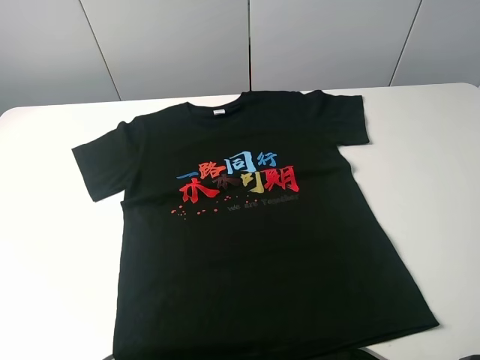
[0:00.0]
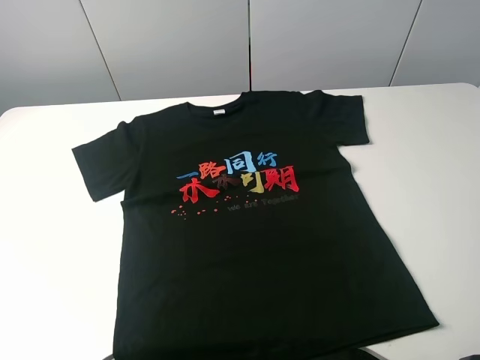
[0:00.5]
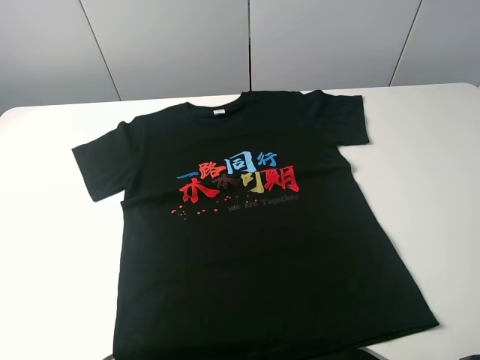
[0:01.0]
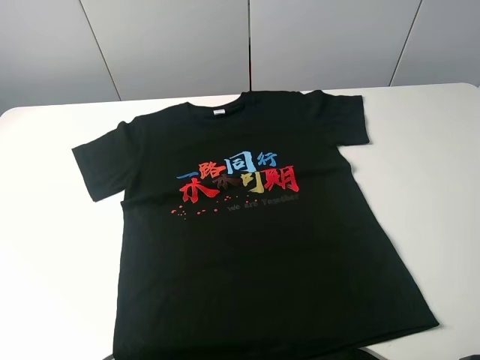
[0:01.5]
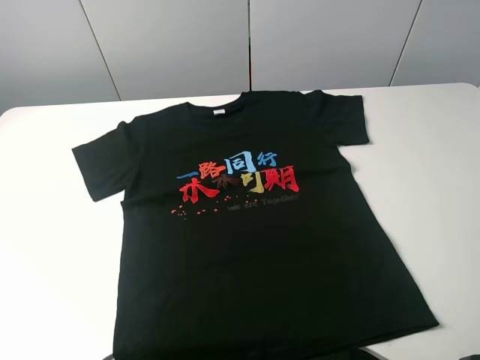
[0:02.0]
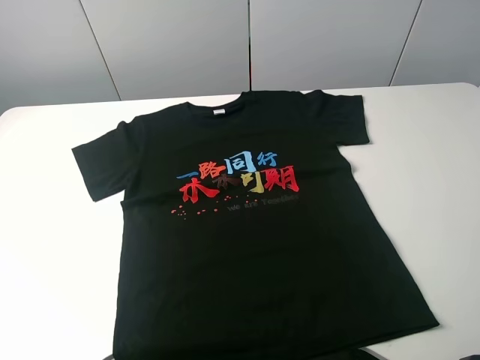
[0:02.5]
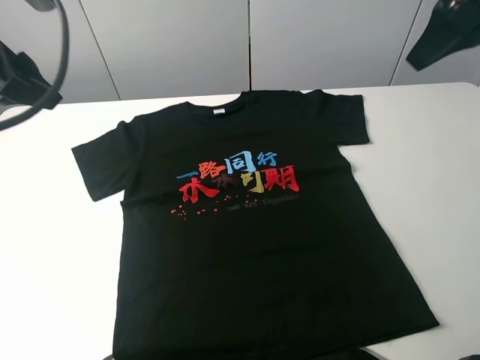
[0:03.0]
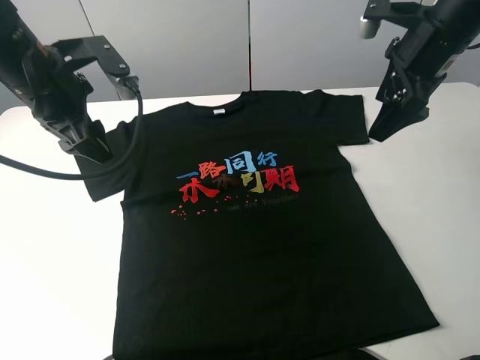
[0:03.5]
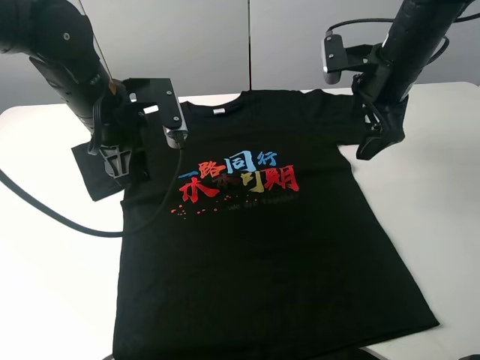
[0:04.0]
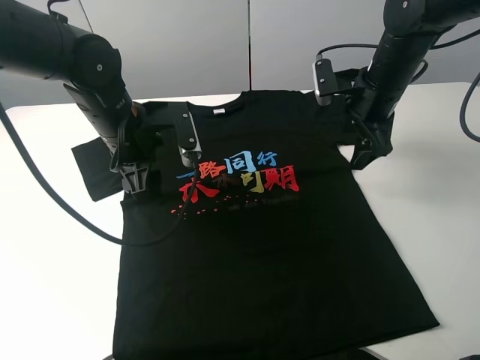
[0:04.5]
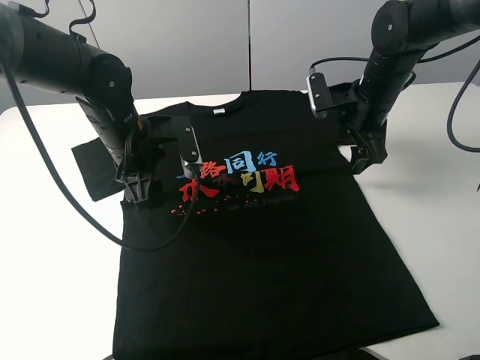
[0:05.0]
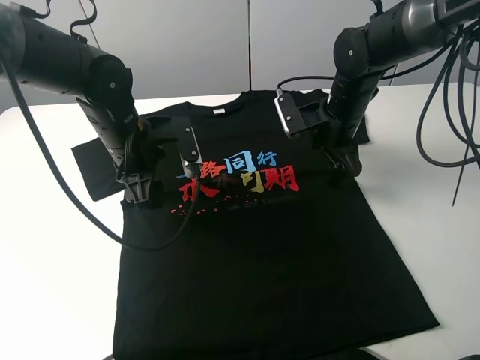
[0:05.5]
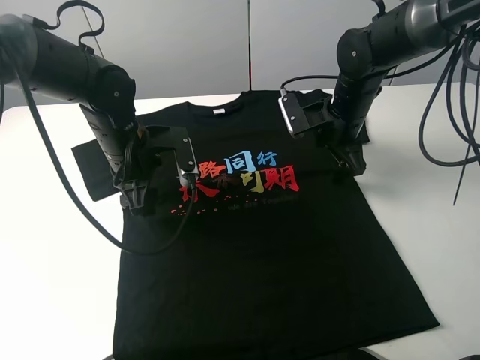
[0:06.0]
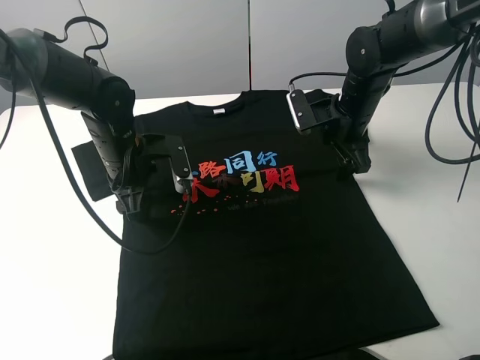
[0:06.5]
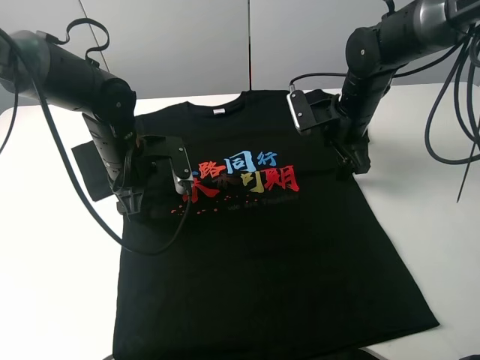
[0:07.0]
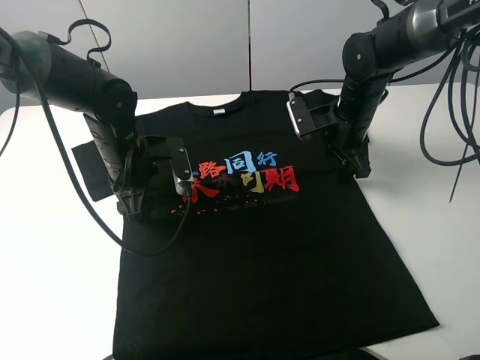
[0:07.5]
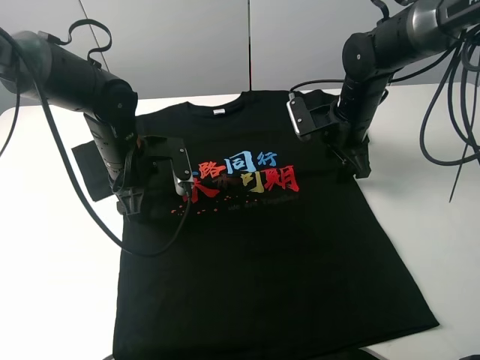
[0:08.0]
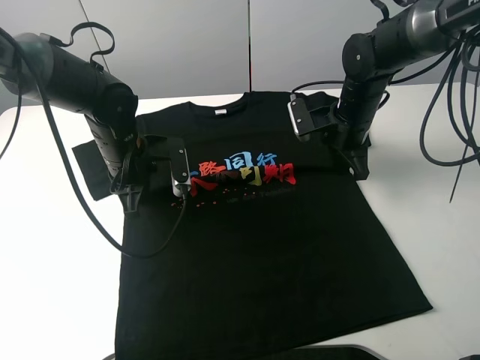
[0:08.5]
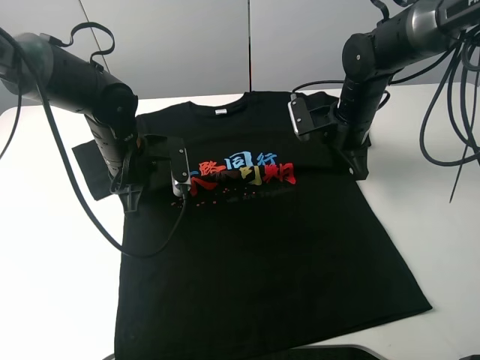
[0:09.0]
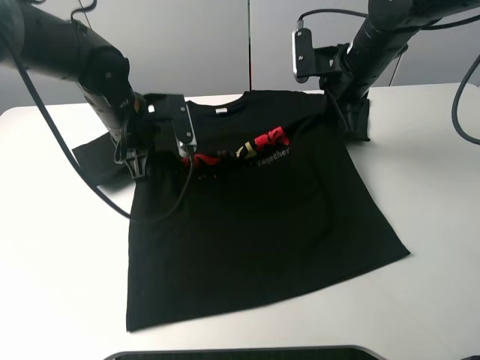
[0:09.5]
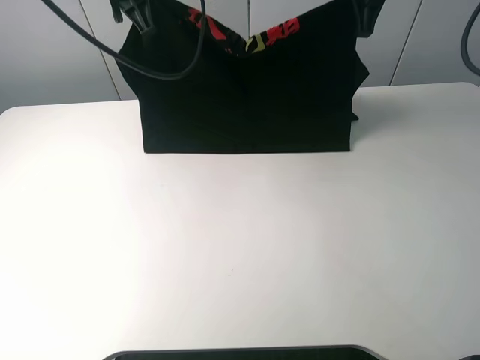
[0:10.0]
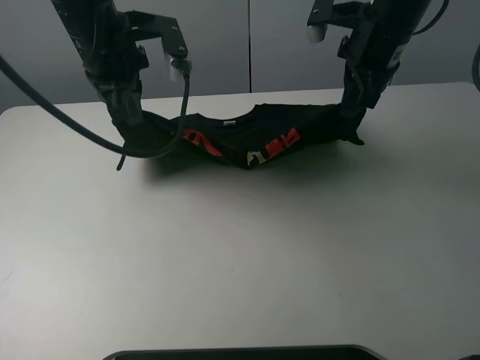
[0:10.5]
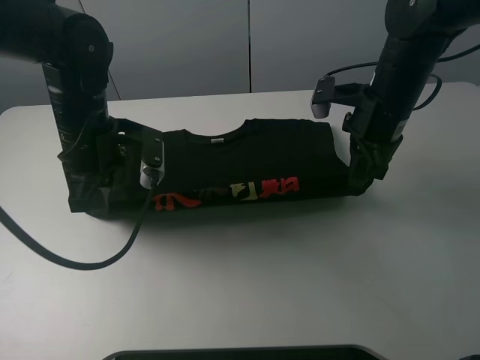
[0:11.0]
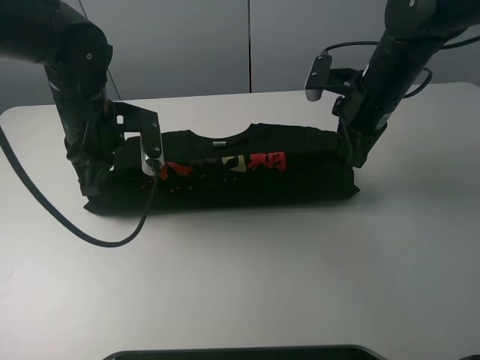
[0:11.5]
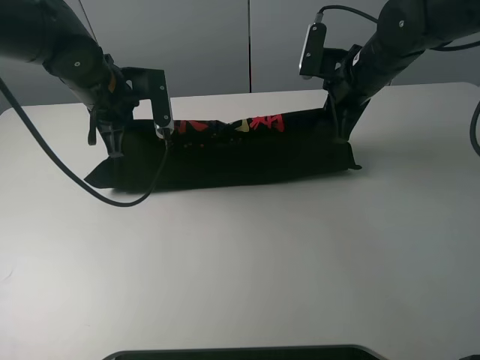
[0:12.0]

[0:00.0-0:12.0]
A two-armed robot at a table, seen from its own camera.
Task of the whole recording: fold the clothes on the table.
Step, 0:00.0 to 0:08.5: Lift the black T-shirt with the left gripper.
0:02.0 to 0:04.0: The left gripper travels forward and to the right by approximately 35 cm. Meanwhile the right gripper goes about 35 cm forward.
0:04.0 to 0:06.0: Both grippers move downward, approximately 10 cm.
0:06.0 to 0:08.0: There are only small adjustments of the grippers.
0:08.0 to 0:10.0: Both grippers move upward, about 20 cm. The left gripper closes its fingers. The right gripper closes up.
0:10.0 to 0:12.0: Both grippers move downward, approximately 15 cm.

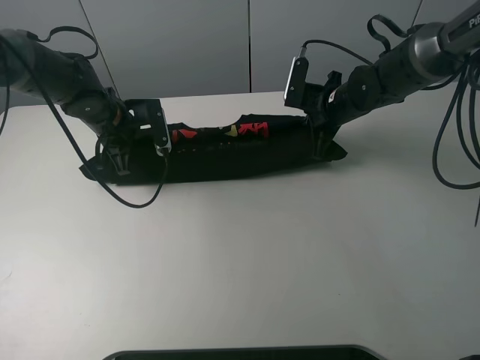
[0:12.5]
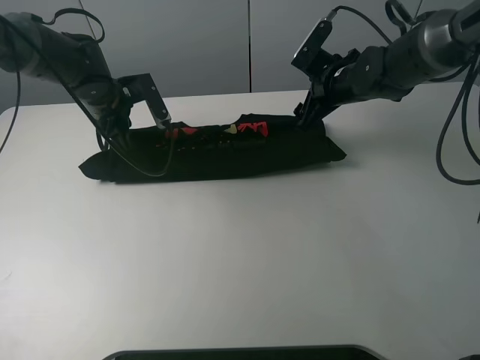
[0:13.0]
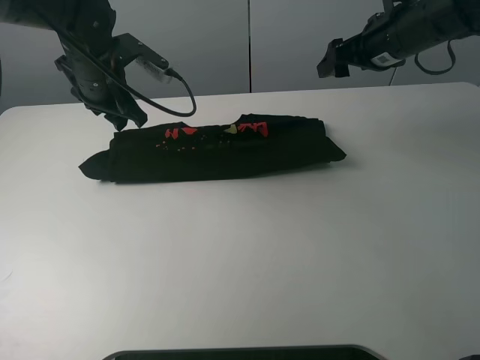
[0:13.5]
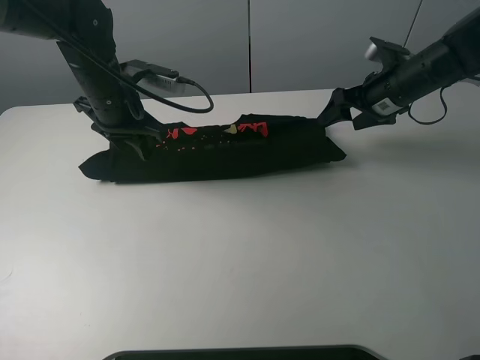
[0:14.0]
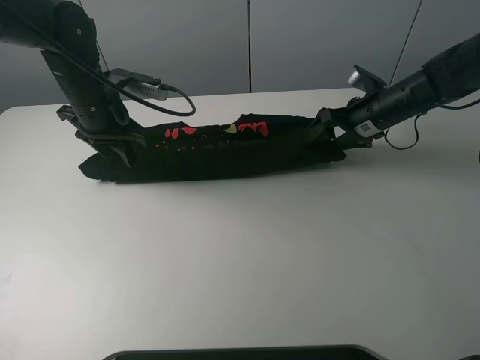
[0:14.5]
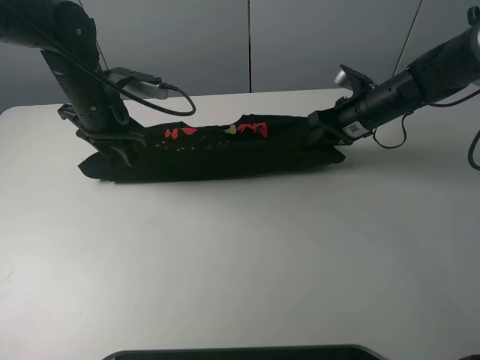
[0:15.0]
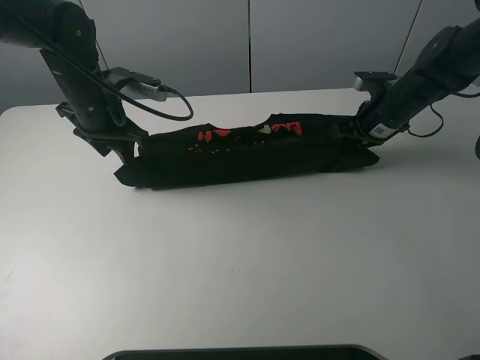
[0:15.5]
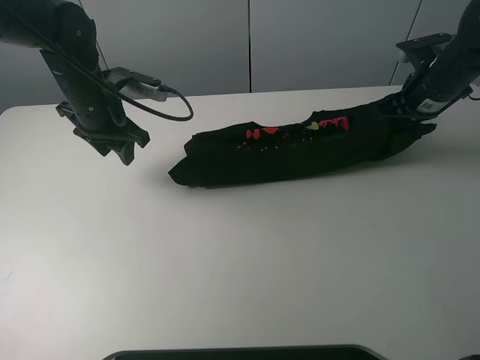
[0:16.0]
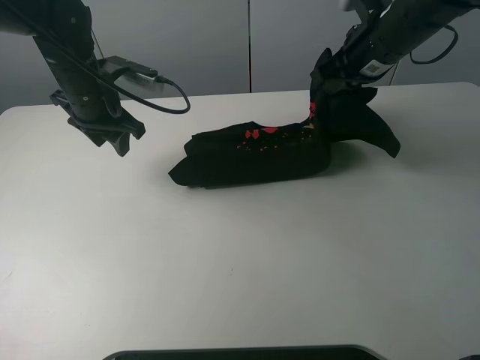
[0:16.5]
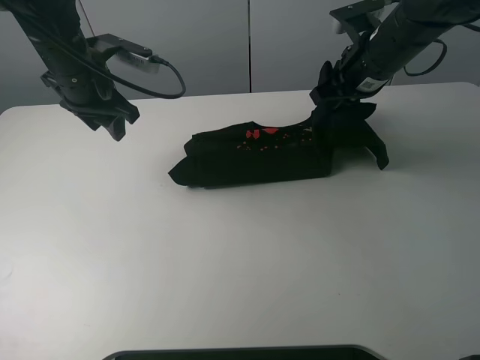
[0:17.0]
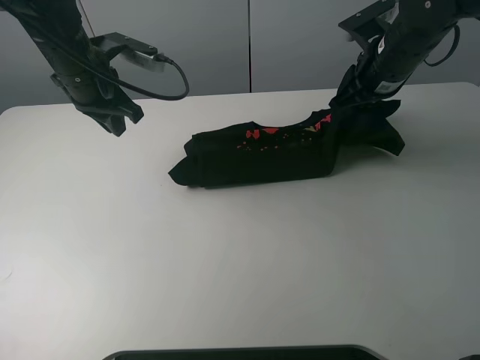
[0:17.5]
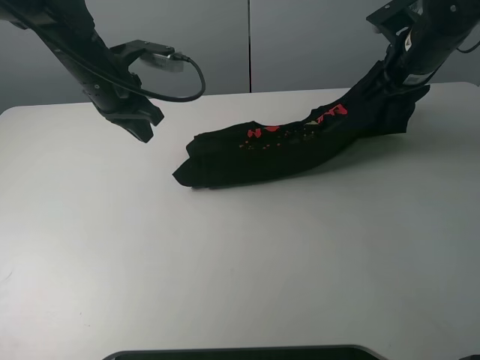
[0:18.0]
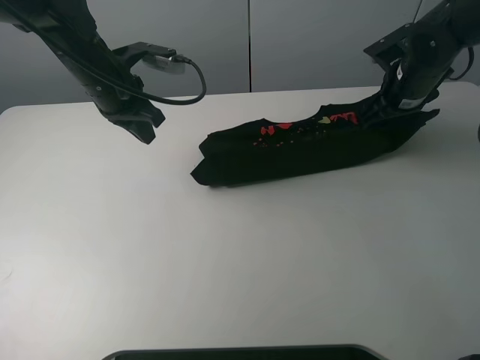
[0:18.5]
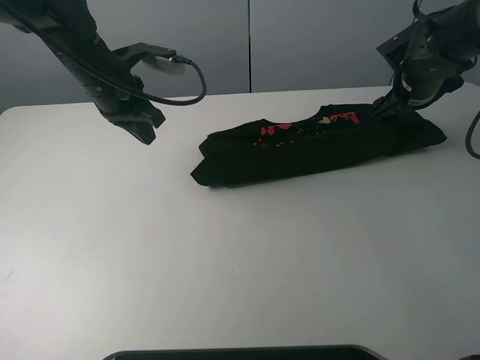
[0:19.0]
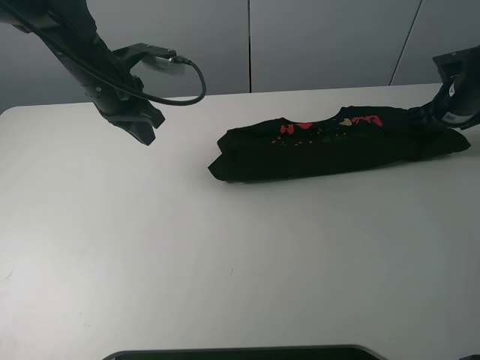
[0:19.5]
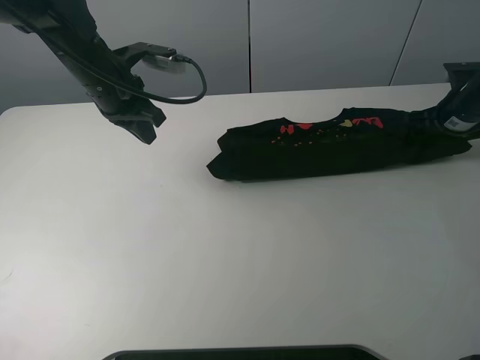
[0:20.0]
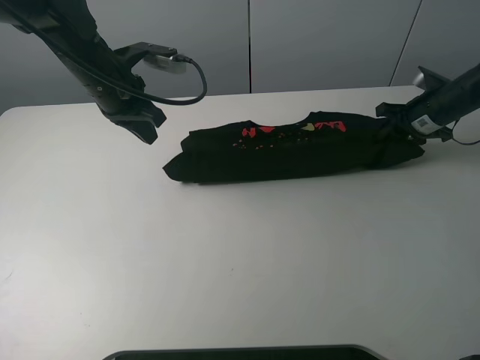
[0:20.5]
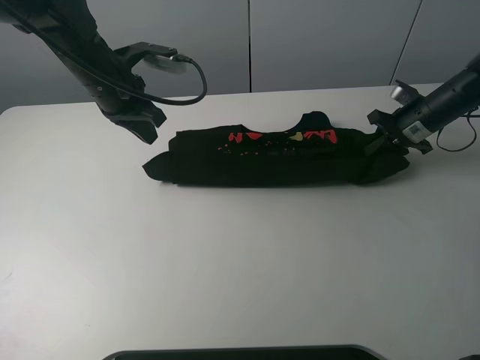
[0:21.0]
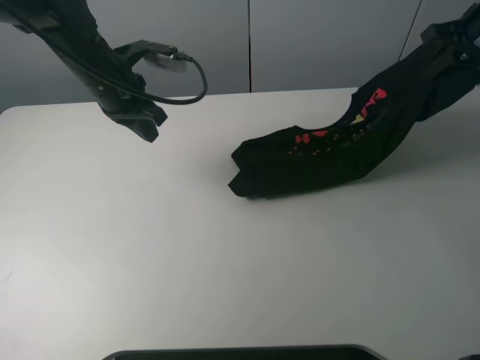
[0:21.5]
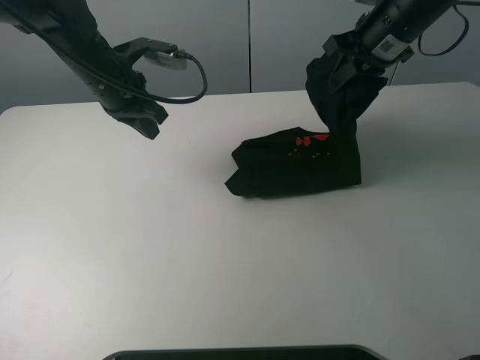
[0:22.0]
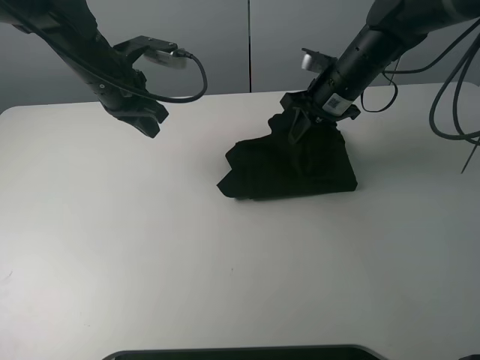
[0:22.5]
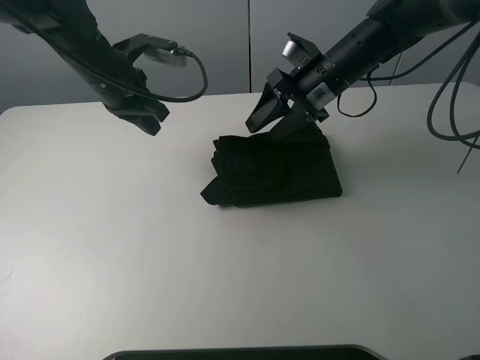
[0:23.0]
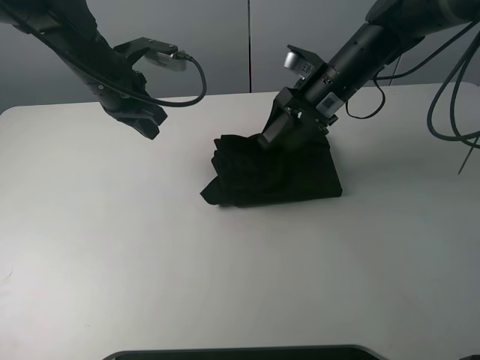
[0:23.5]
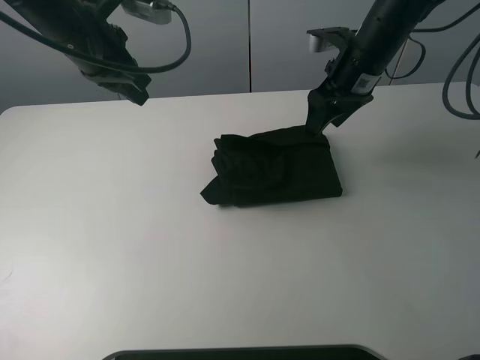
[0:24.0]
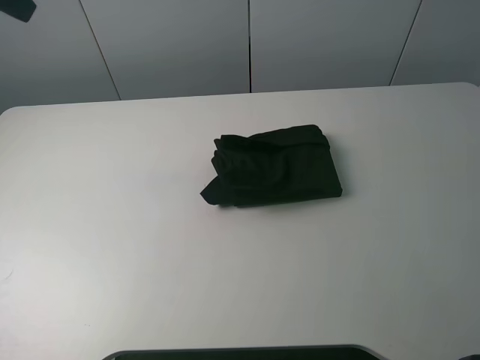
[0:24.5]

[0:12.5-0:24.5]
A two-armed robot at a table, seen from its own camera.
Task of the whole recording: fold the clothes on the table.
Step, 0:13.5 to 0:15.0: Grasp the black T-shirt with the right gripper.
Step, 0:15.5 to 0:23.5: Fold the black T-shirt from right to left with right gripper.
0:12.5 to 0:14.5: The left gripper moves upward, roughly 5 cm, and opens. Meanwhile the right gripper goes approximately 5 cm to the right, moves about 10 cm upward and comes back, and opens up.
0:14.5 to 0:16.5: The right gripper heads upward, covering some 15 cm, and closes.
0:16.5 to 0:18.5: The left gripper closes up, while the right gripper goes some 10 cm downward and to the right, and opens up.
0:18.5 to 0:20.5: The right gripper heads to the right and downward, covering about 10 cm, and closes up.
0:20.5 to 0:22.5: The right gripper shifts approximately 20 cm to the left and upward.
0:22.5 to 0:24.5: Both grippers travel together upward and backward, about 30 cm. The right gripper opens its fingers. Meanwhile the left gripper opens.

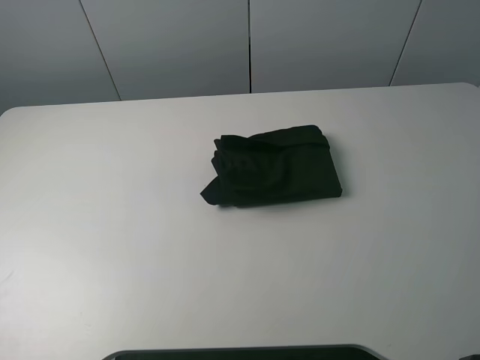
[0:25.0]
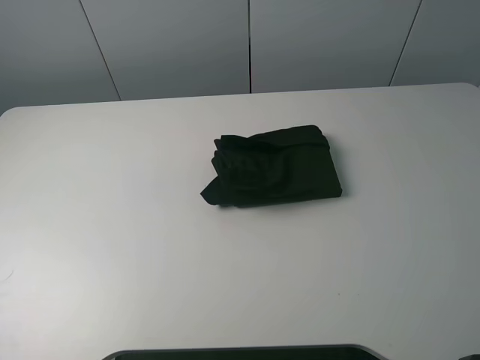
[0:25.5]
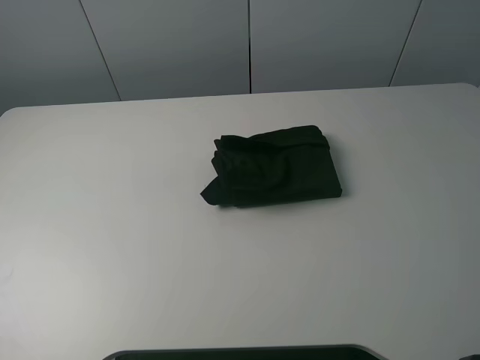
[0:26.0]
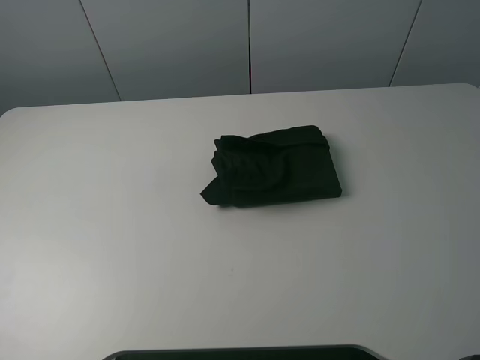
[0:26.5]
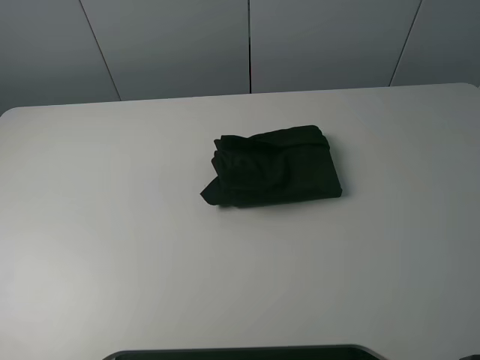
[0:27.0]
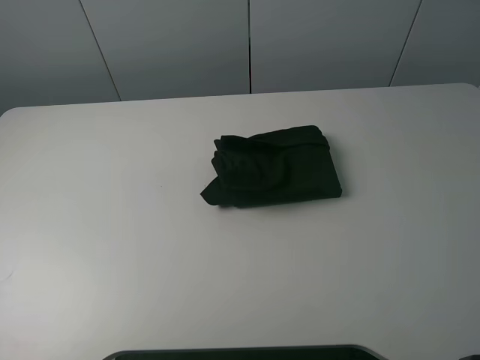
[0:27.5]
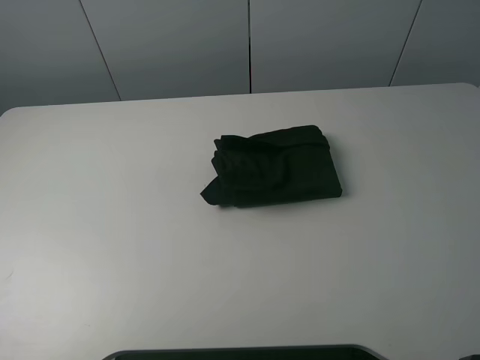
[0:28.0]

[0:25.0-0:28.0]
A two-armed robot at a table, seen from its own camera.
Task of the whole recording: fold the clothes on the table.
0:25.0 to 0:26.5: The left gripper heads backward, covering roughly 20 cm; the right gripper is displaced backward and downward by approximately 15 cm.
